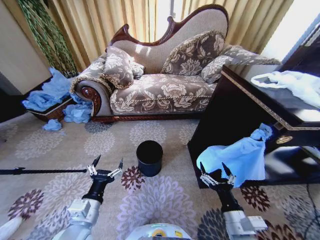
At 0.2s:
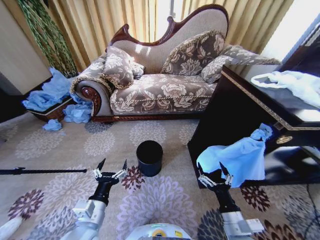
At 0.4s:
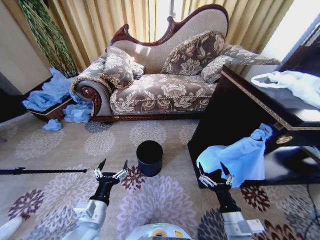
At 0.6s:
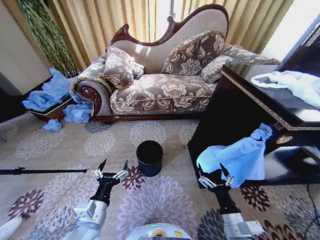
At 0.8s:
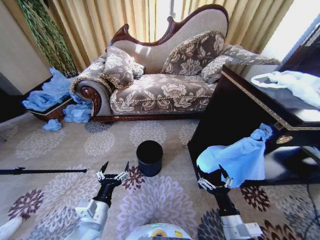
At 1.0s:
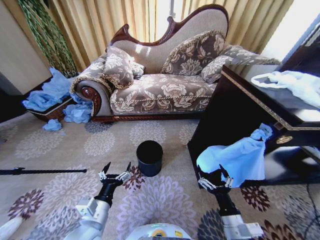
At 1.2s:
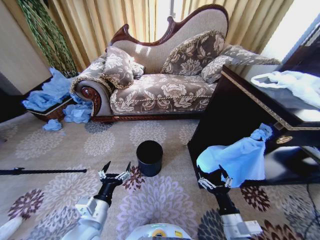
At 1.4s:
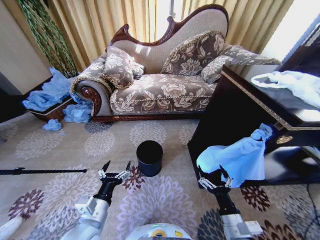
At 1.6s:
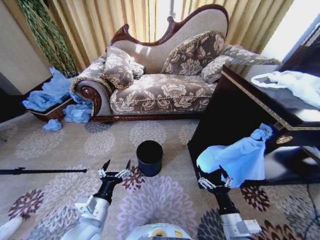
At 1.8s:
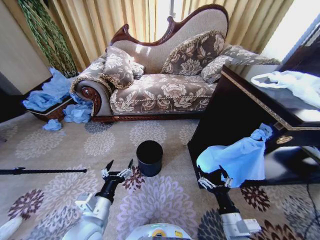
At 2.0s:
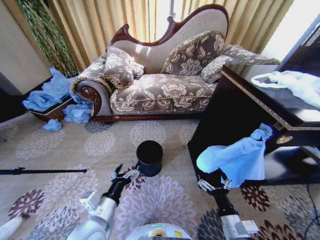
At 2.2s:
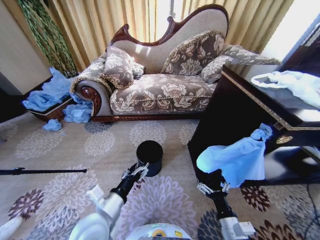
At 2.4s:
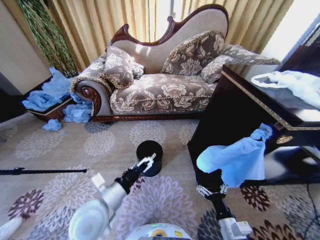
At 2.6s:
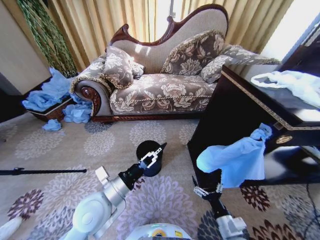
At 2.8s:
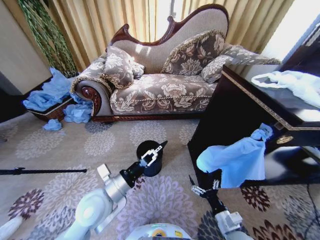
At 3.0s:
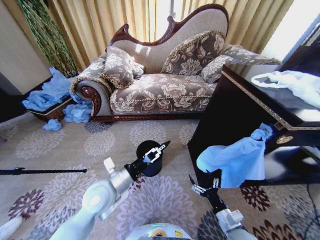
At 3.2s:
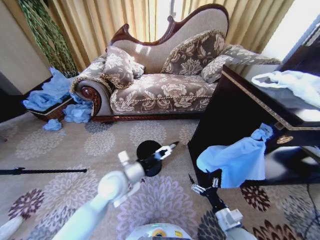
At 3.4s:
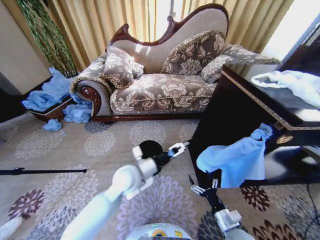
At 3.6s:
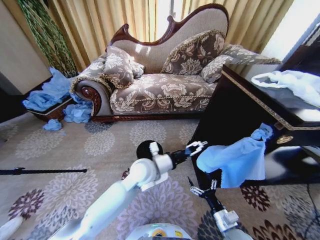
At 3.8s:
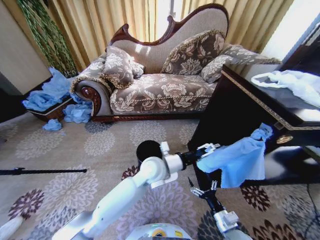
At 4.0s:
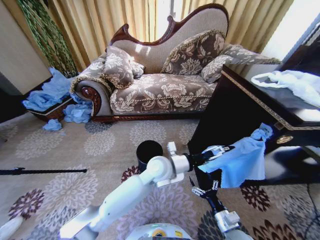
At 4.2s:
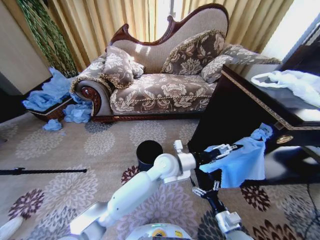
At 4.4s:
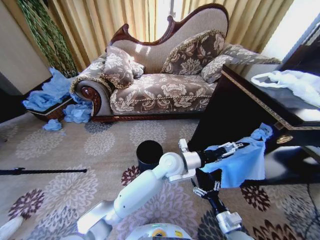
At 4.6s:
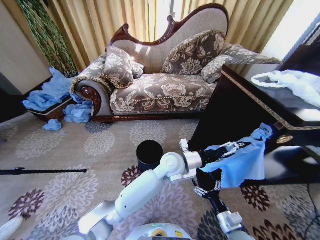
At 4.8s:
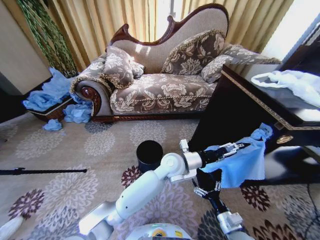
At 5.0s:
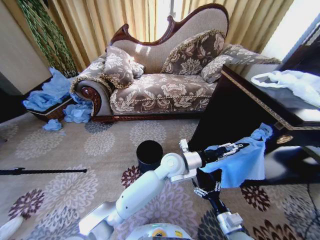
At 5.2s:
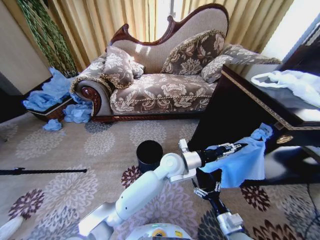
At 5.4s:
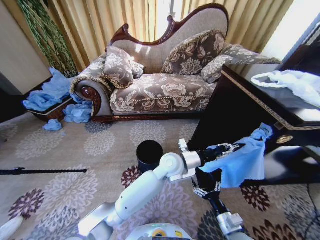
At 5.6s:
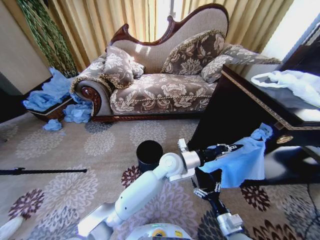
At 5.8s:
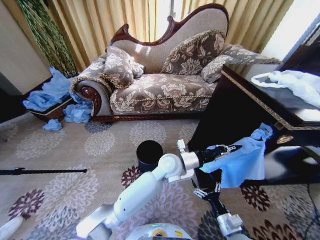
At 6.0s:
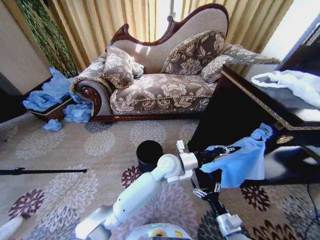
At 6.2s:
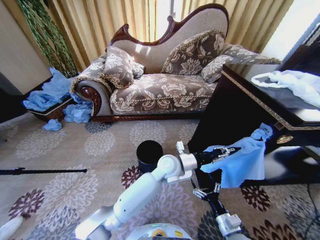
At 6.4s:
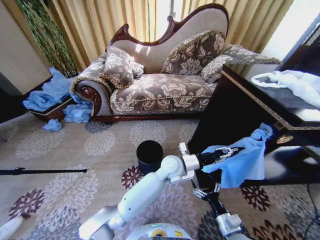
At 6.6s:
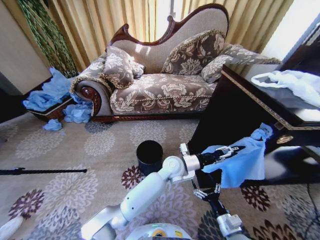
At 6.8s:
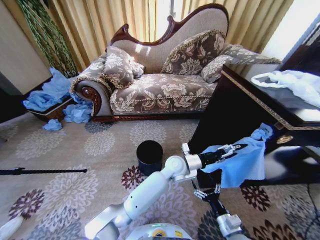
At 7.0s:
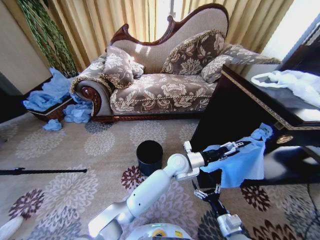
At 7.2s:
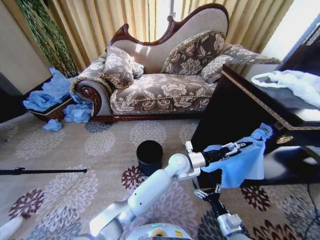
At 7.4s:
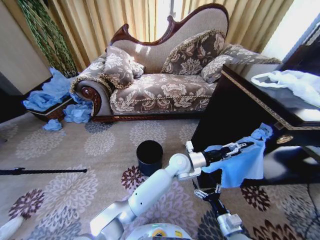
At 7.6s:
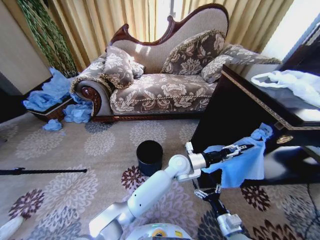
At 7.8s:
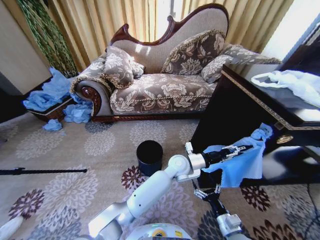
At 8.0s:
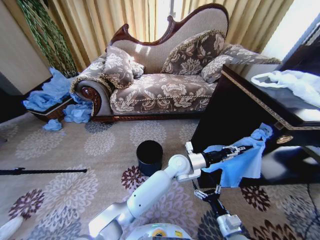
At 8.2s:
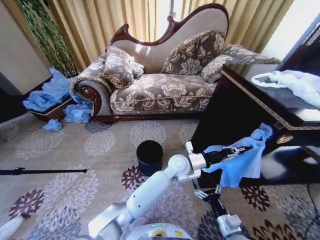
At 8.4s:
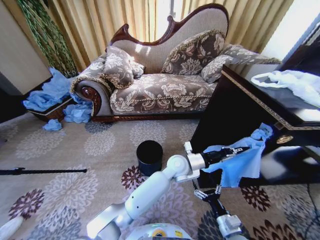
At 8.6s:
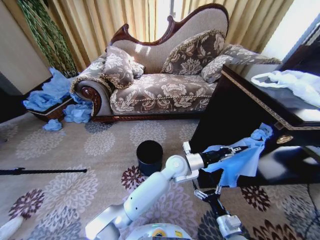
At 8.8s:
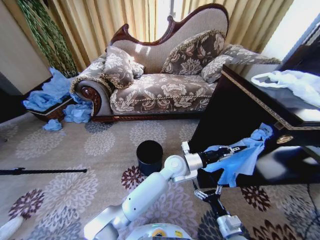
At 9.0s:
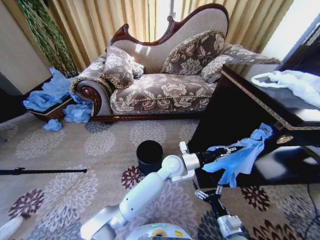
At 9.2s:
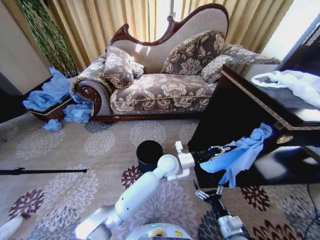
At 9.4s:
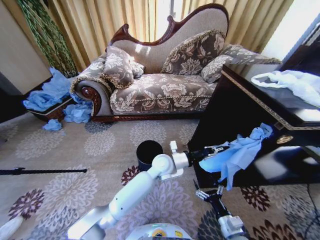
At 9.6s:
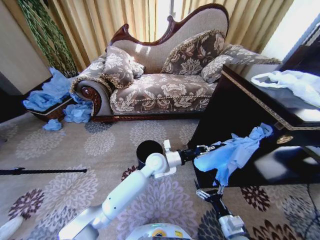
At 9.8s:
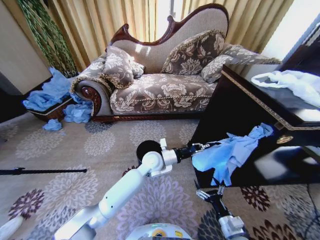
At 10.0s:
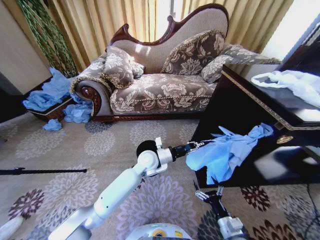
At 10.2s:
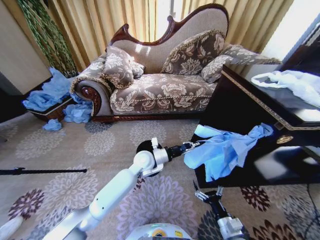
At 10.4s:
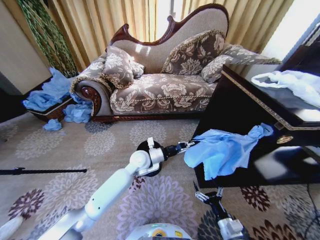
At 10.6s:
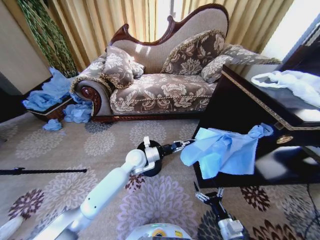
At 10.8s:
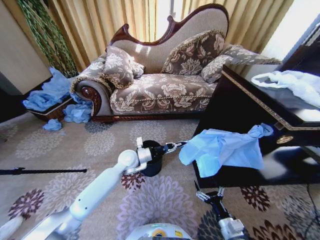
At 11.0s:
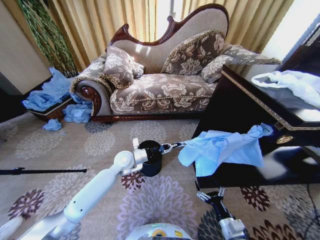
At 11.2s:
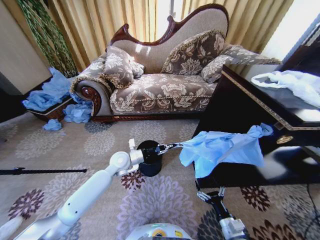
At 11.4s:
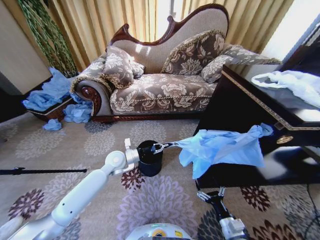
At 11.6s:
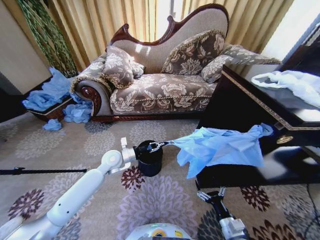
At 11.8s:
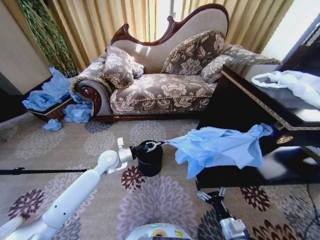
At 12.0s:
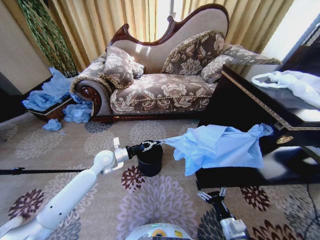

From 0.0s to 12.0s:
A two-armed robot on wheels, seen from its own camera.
Task of the whole recording: Place a garbage bag over the trash bin.
From 1.6s to 3.0s: The left gripper goes about 10 cm forward; the right gripper moves downward, some 5 cm.
From 3.0s to 4.4s: The left gripper heads to the right and forward, covering approximately 25 cm.
From 4.4s to 6.0s: The left gripper closes its fingers.
From 6.0s to 7.6s: The left gripper moves some 5 cm, and opens up.
From 7.6s to 9.0s: The left gripper closes.
From 9.0s to 10.4s: The left gripper goes roughly 15 cm to the left.
From 10.4s to 12.0s: The left gripper is displaced to the left by approximately 15 cm.

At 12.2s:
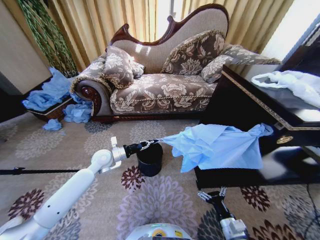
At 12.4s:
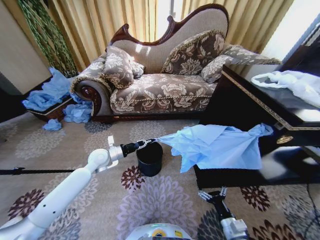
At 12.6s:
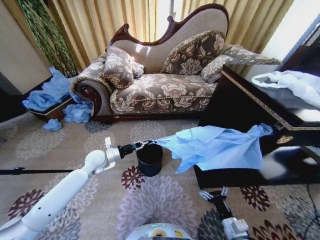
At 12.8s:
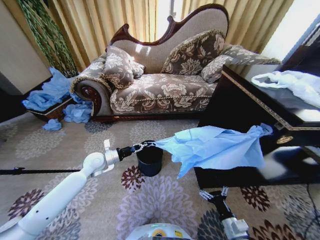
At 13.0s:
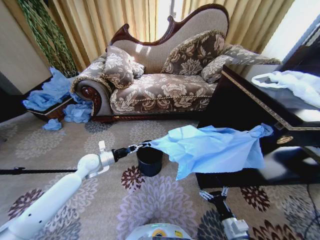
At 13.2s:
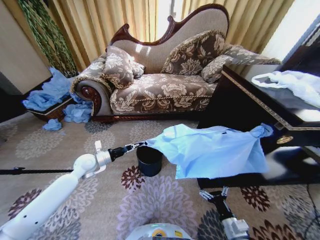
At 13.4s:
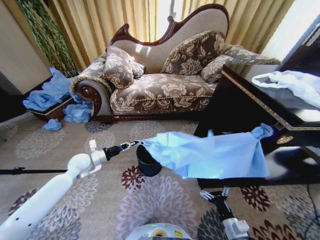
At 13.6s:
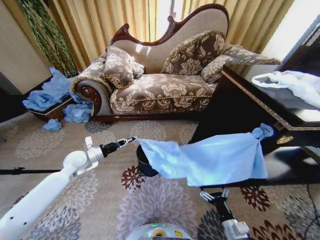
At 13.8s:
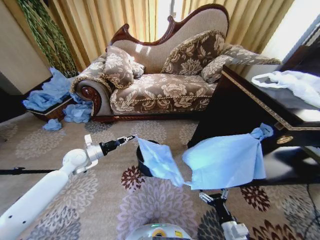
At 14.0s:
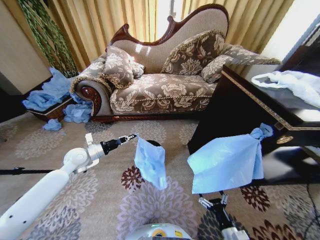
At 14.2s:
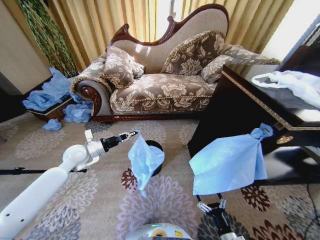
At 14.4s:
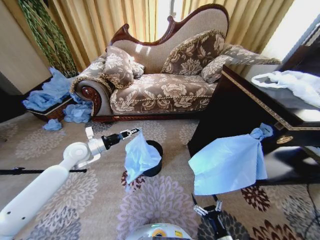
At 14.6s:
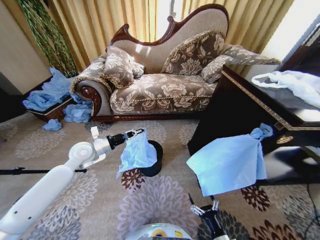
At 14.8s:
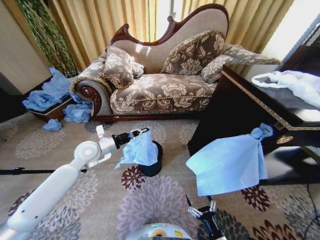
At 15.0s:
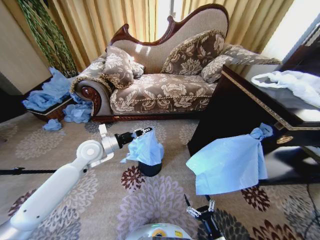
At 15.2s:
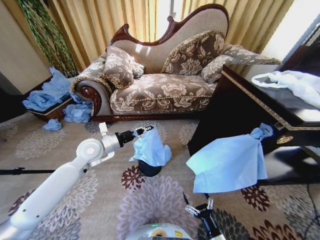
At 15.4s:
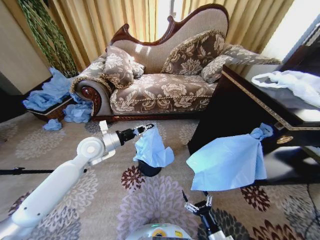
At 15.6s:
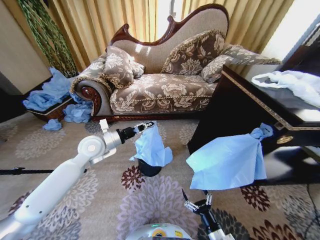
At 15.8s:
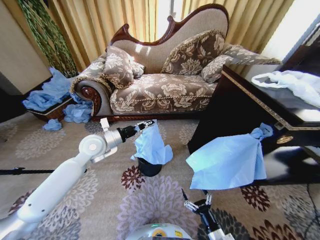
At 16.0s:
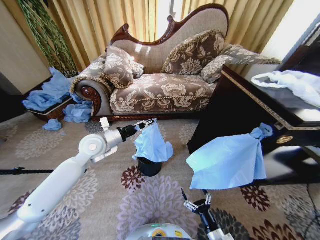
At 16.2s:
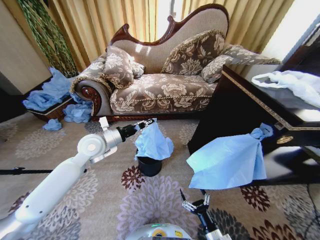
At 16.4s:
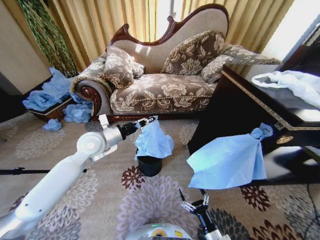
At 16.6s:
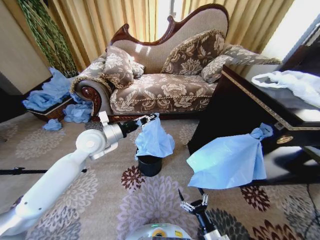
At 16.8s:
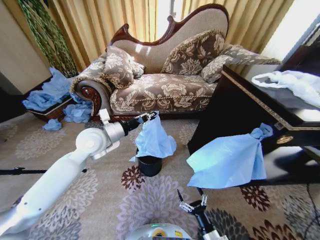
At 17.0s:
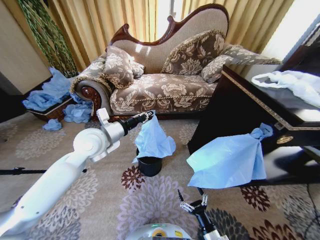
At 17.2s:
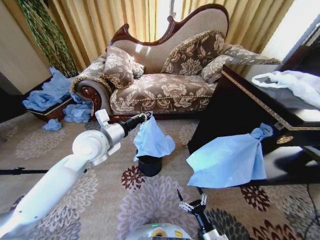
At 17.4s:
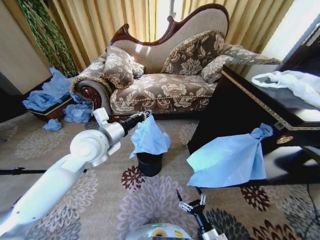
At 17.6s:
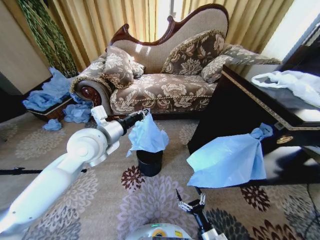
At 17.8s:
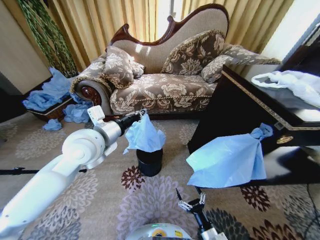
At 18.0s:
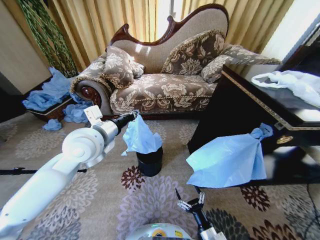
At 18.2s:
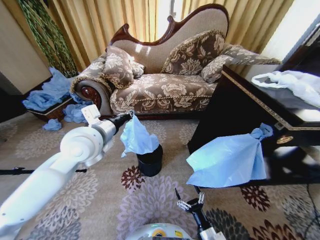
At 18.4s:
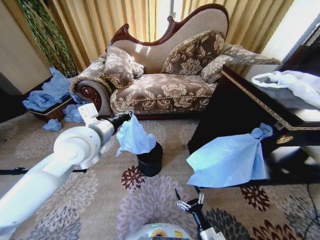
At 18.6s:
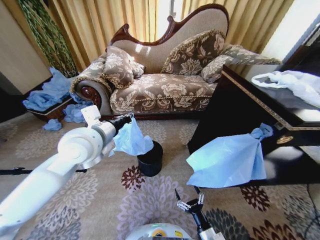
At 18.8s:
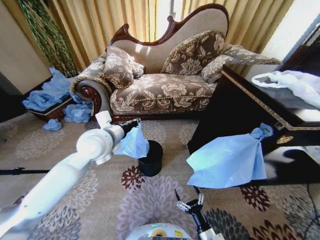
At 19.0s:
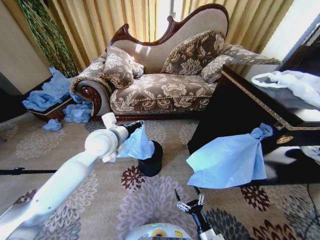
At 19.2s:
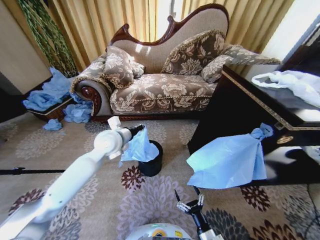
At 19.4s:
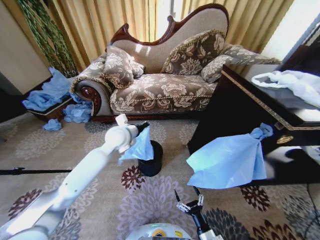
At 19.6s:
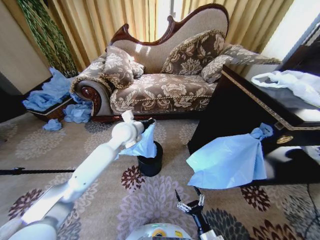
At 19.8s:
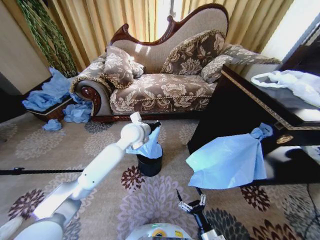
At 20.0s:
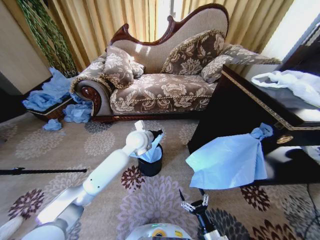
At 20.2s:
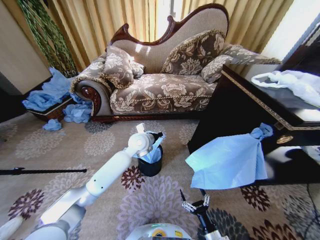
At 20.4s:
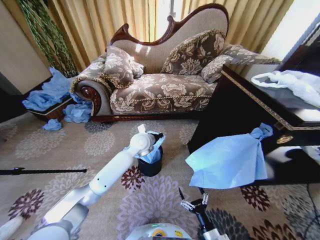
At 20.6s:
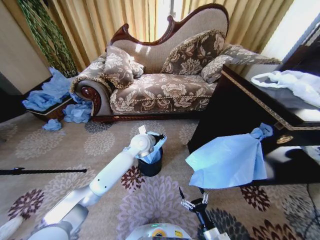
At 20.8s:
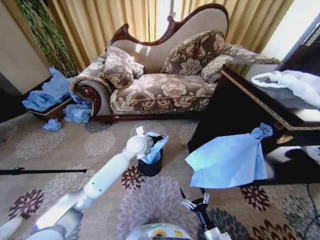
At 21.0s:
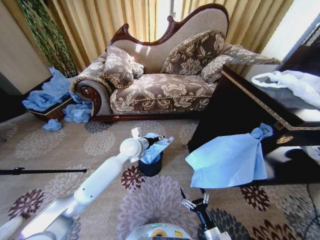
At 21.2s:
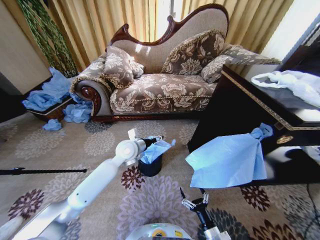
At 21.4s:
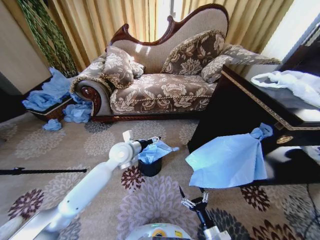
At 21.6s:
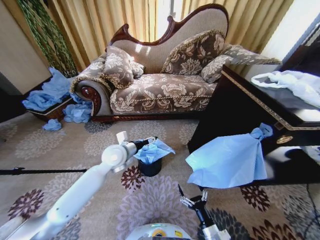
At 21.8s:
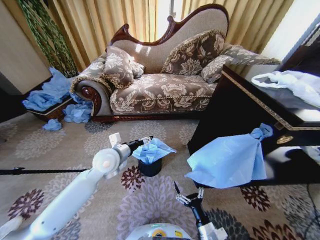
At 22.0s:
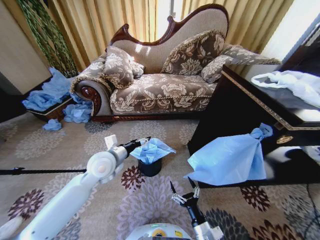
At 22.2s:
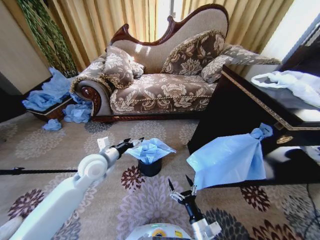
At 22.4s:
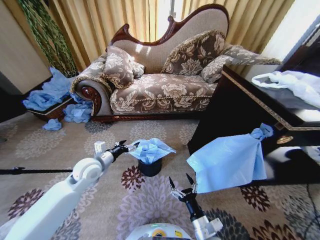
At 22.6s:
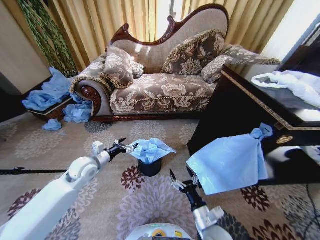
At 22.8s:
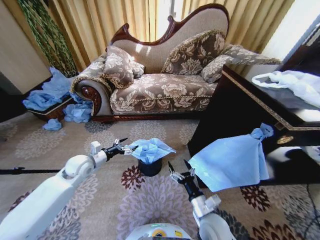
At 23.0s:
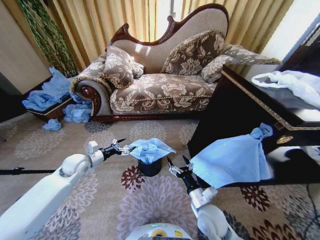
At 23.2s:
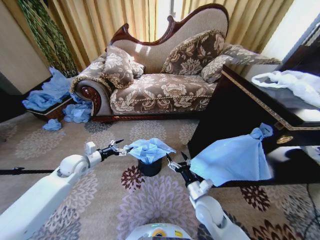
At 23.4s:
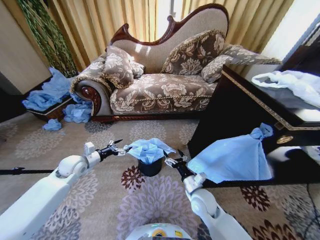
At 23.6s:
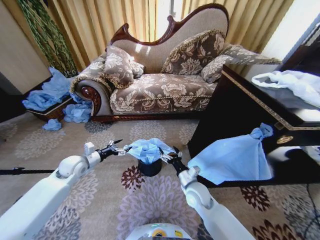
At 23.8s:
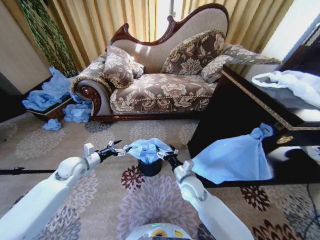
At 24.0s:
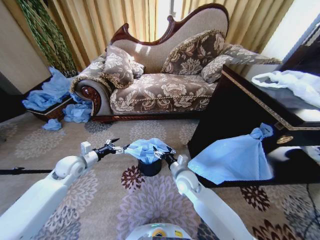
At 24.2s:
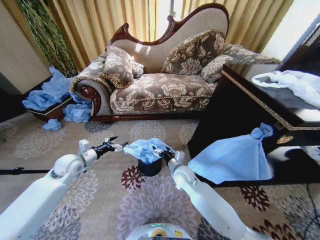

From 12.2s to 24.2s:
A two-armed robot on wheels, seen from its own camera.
Task of the whole recording: Place a garbage bag over the trash bin.
From 12.2s to 13.8s: The left gripper heads to the left, covering some 10 cm.
From 13.8s to 15.2s: The right gripper changes place by some 5 cm. Meanwhile the left gripper is displaced to the right and upward by some 10 cm.
From 15.2s to 16.6s: The left gripper goes about 5 cm upward.
From 16.6s to 18.2s: The left gripper travels backward and upward by approximately 10 cm.
From 18.2s to 19.8s: The left gripper goes about 20 cm forward, to the right and downward.
From 19.8s to 21.2s: The left gripper travels downward by approximately 5 cm, and opens up.
From 21.2s to 22.6s: The right gripper travels upward and to the left by roughly 10 cm. Meanwhile the left gripper heads to the left and backward, covering approximately 20 cm.
From 22.6s to 24.2s: The right gripper travels forward and to the left by some 25 cm; the left gripper goes roughly 10 cm to the left.
